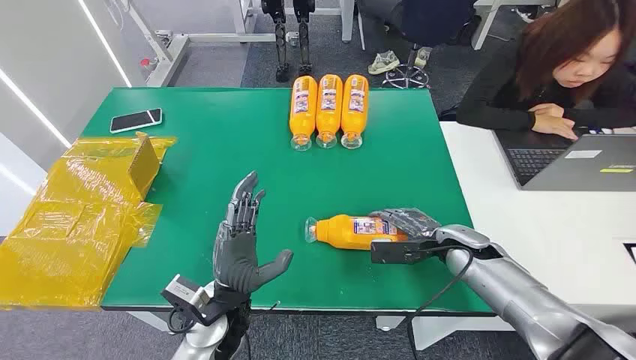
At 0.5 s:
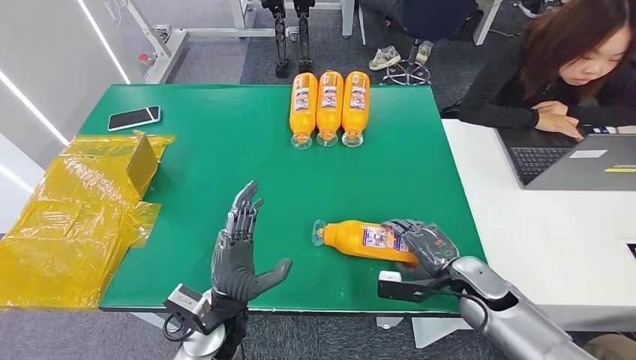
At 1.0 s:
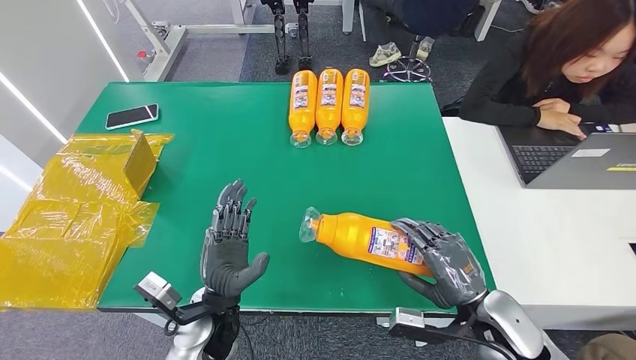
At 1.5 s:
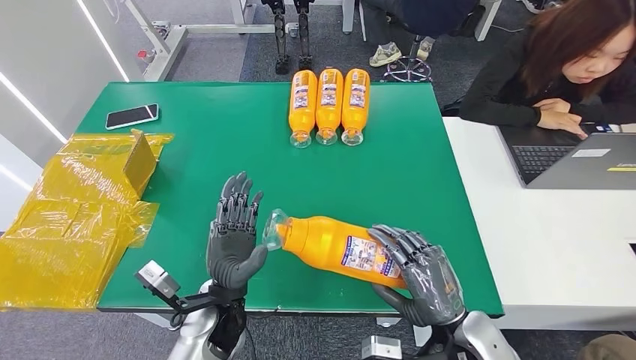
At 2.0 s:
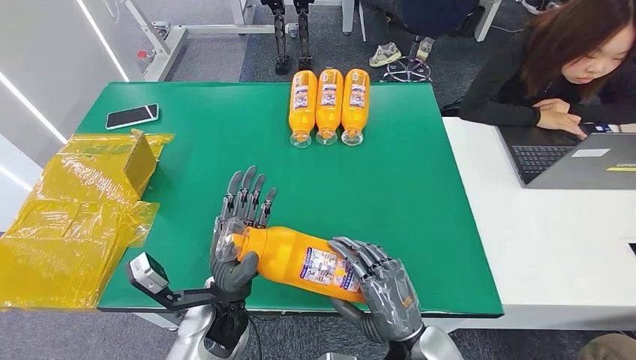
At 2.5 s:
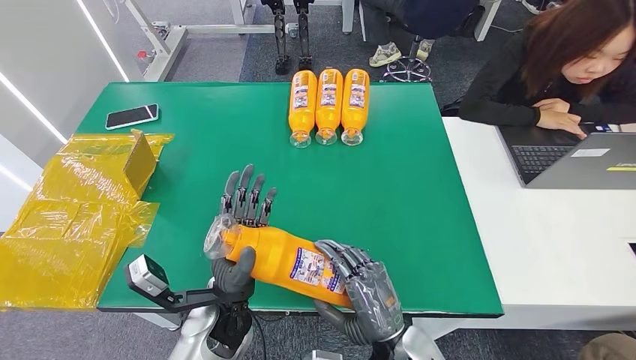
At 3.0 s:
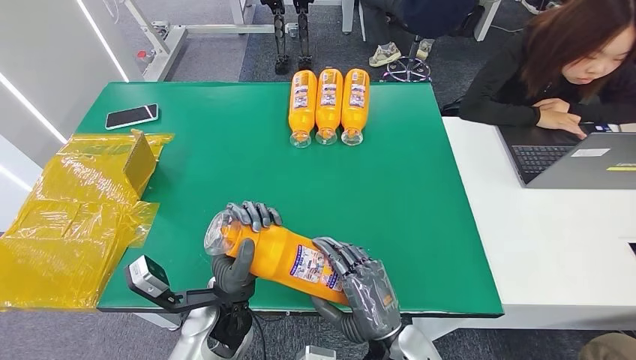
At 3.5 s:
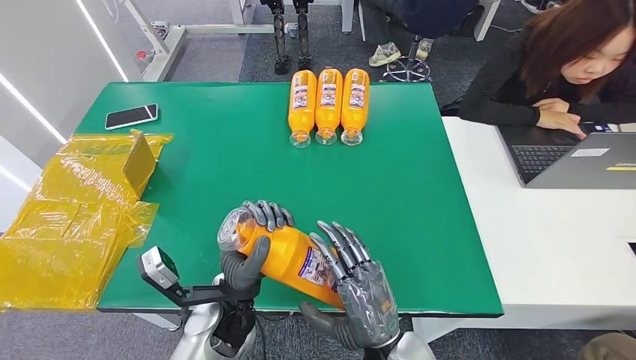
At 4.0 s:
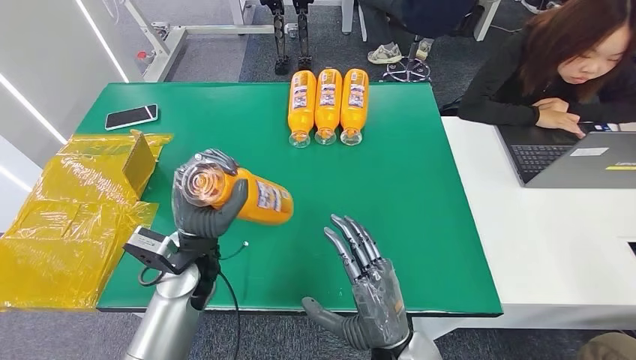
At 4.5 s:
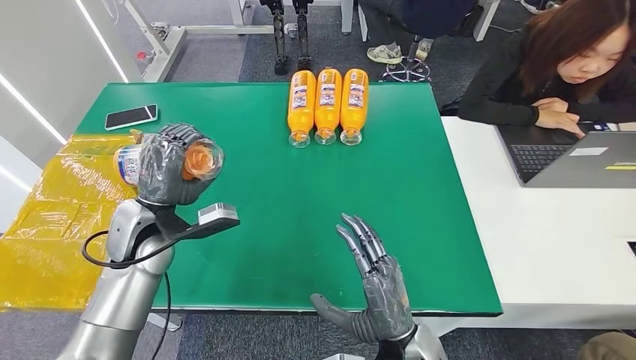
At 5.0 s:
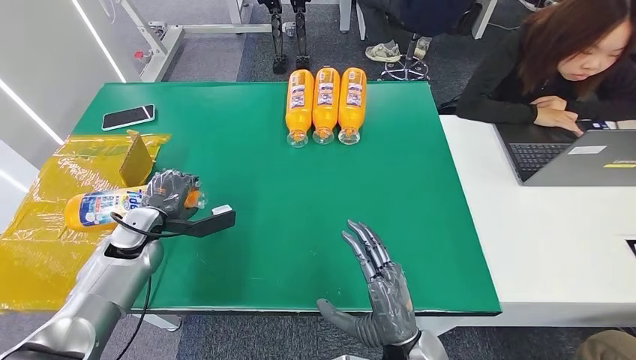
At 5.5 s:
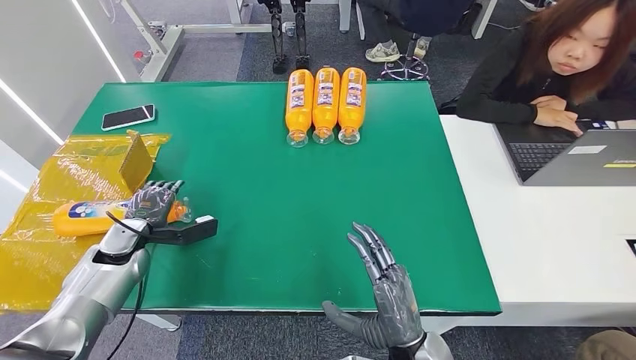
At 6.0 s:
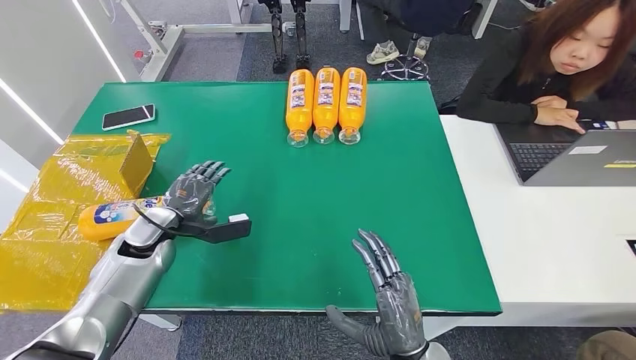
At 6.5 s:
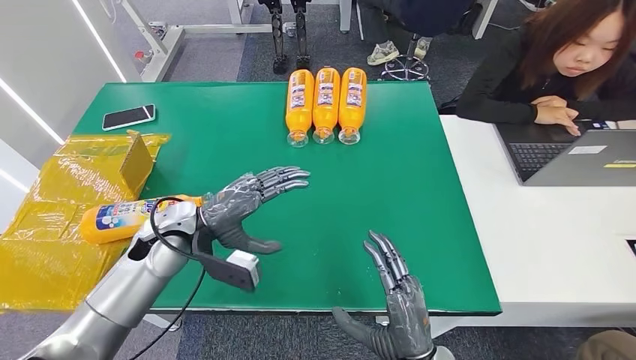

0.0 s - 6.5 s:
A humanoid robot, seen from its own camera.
Step, 0.0 s - 2.0 s: Pick up the bottle from the table.
Step, 2.5 s - 6.5 s: Turn the bottle to the front side.
2.0 s - 4.5 s: The left hand moves to the left, forward and upward, some 20 cm.
4.5 s - 6.5 s: The left hand travels to the left and back again, some 15 cm each way.
